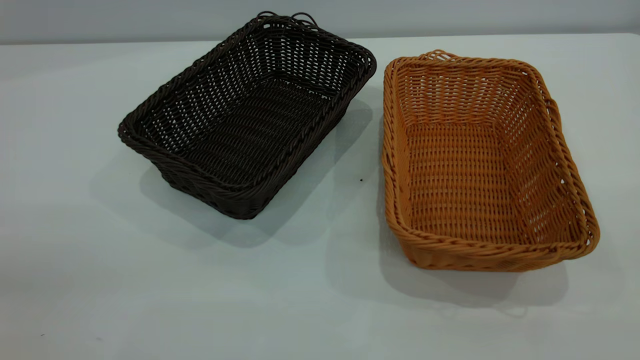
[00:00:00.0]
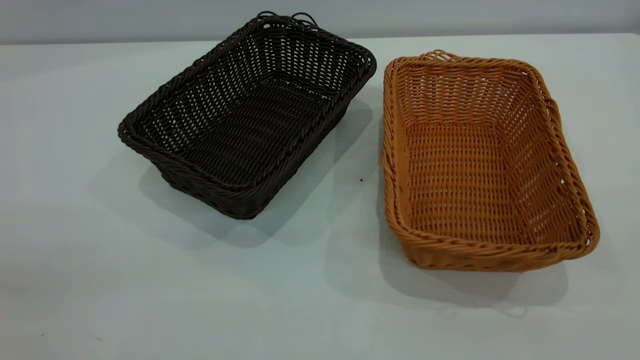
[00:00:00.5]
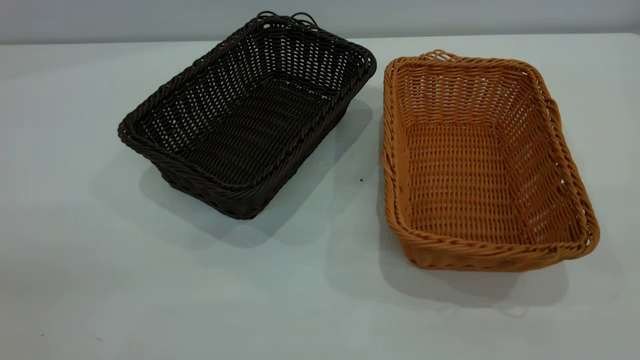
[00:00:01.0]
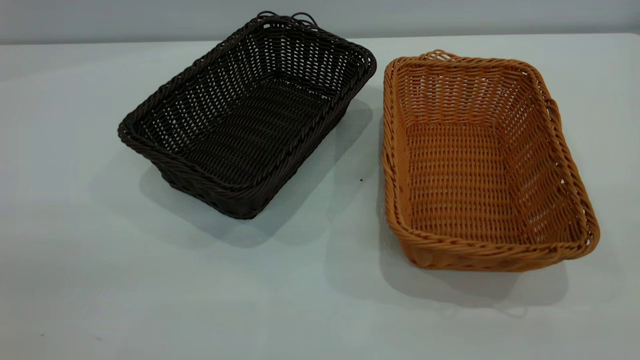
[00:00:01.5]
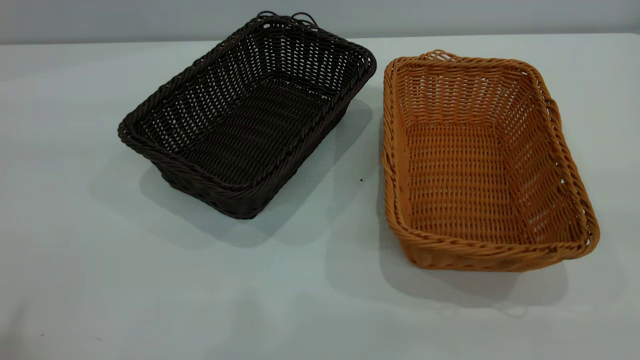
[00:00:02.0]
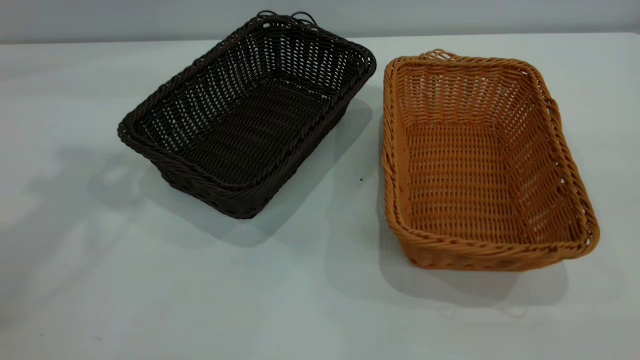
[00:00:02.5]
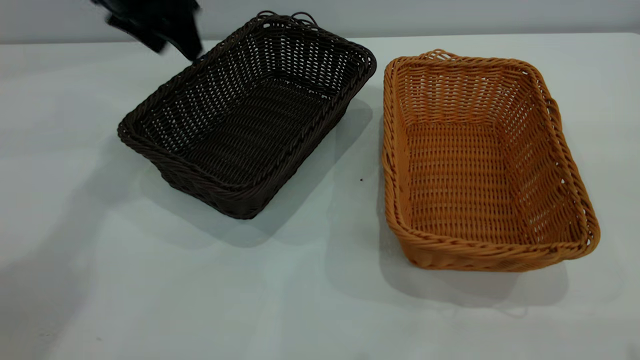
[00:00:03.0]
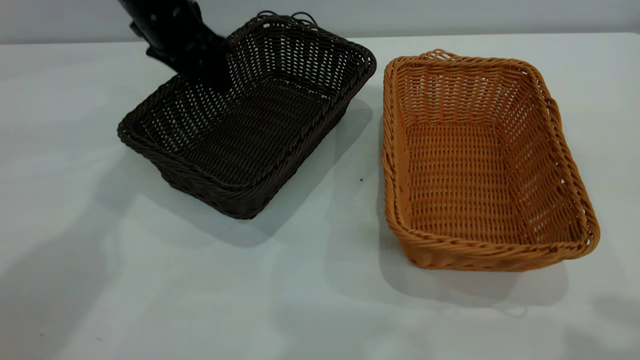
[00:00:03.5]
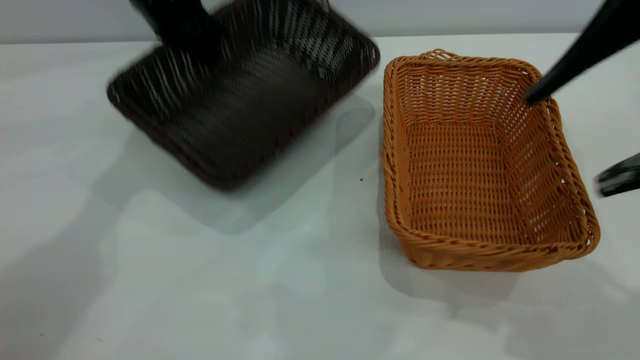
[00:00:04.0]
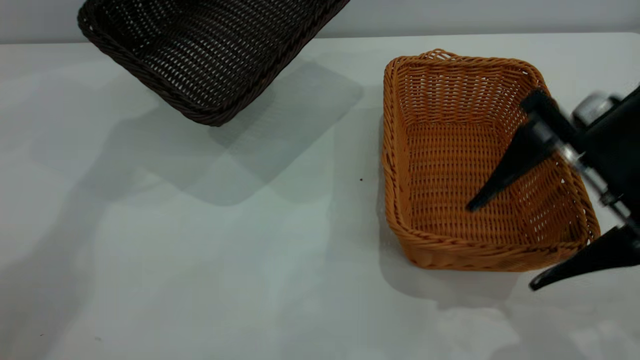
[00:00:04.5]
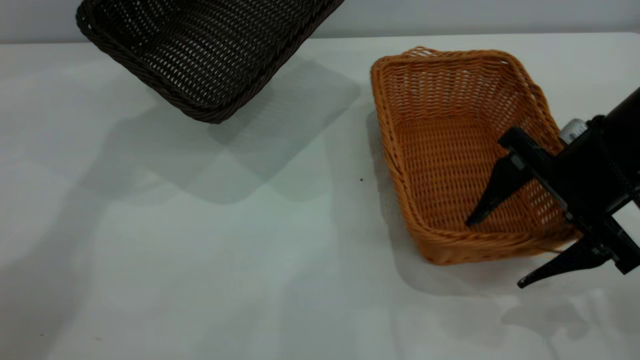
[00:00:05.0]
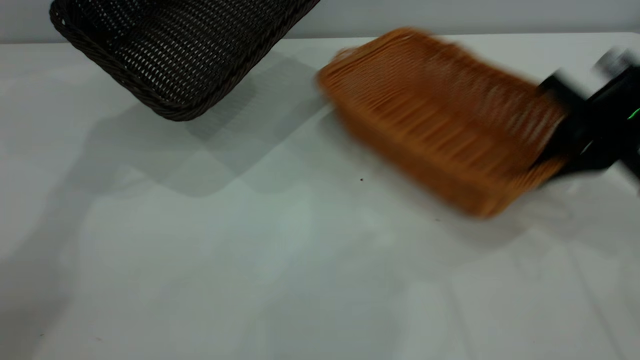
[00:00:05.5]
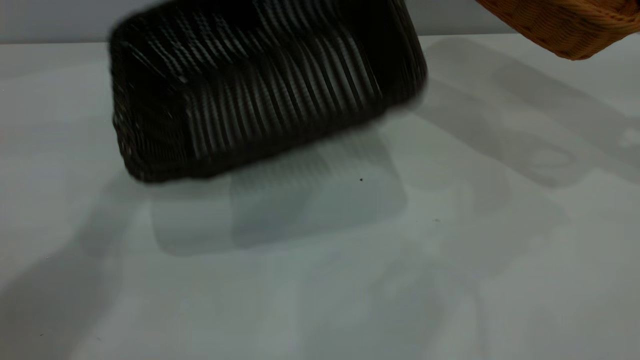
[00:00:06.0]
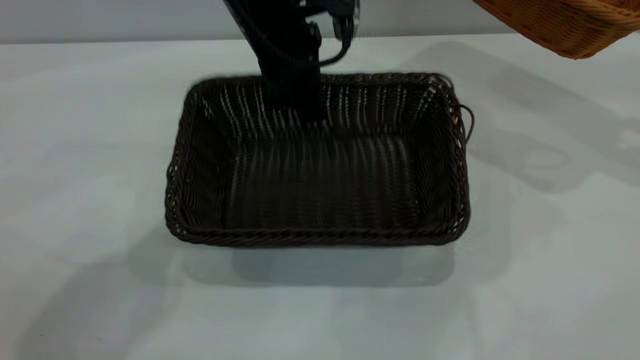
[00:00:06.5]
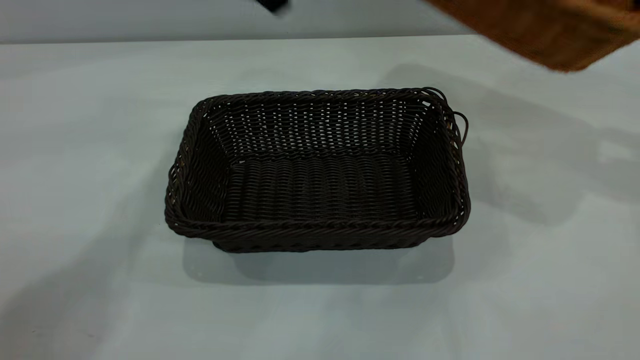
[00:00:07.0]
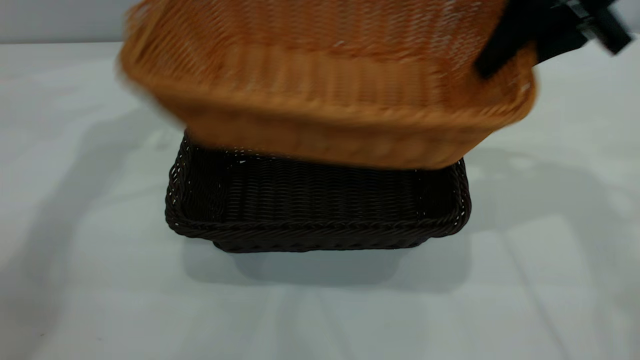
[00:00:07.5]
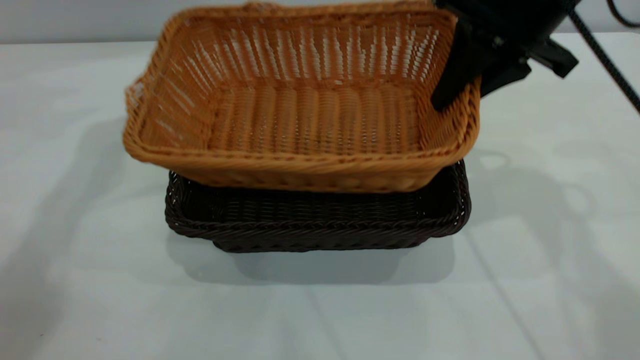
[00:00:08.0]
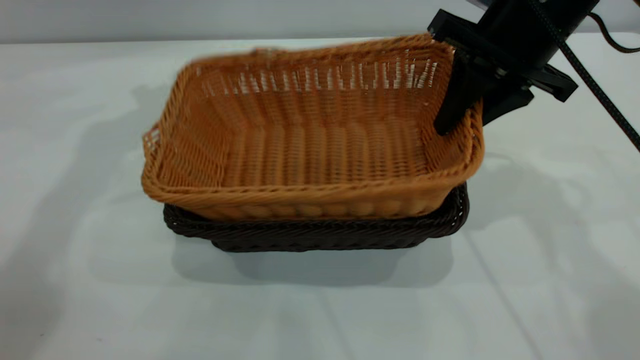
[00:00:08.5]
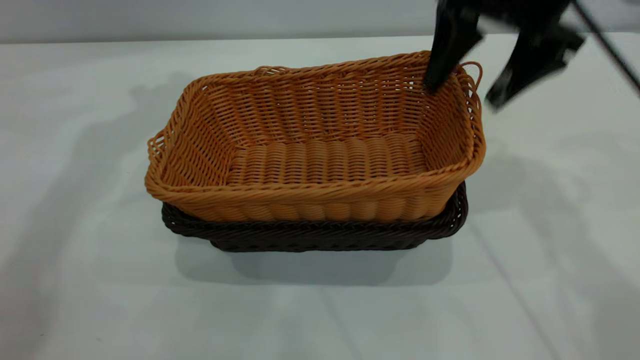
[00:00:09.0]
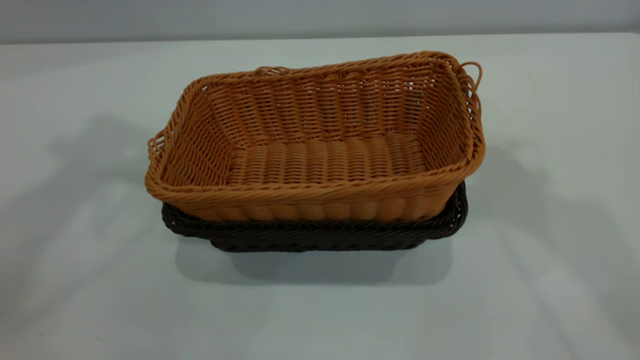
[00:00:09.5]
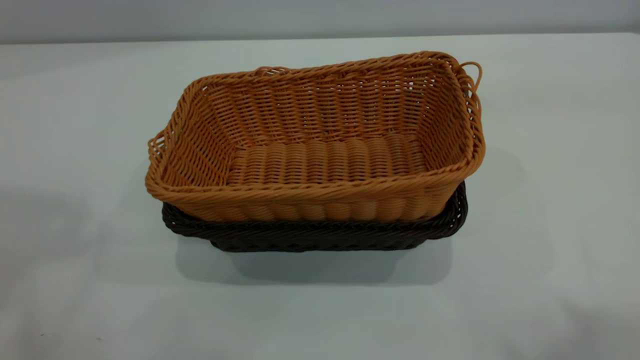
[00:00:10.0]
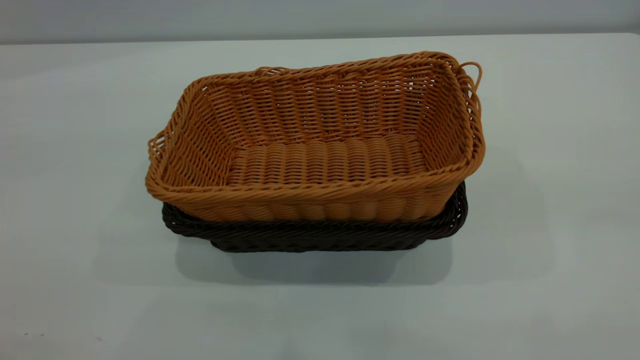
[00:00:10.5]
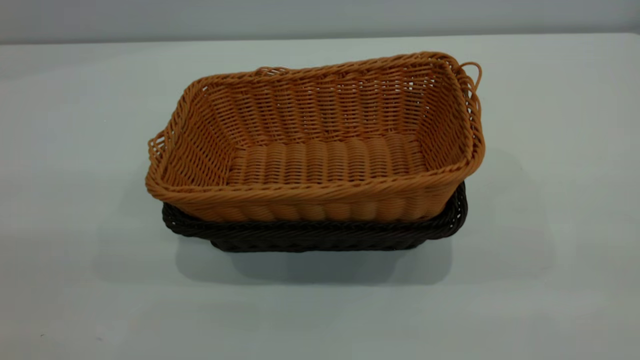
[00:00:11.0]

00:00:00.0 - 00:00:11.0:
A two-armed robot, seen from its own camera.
Task of the whole recording: the left gripper grasp the black basket and place it in the center of the table, the right gripper grasp the brown basket and place it inside the black one.
Step, 00:00:00.0 - 00:00:05.5: Pick up the light basket with the right gripper.
Step, 00:00:06.0 - 00:00:06.5: Move the dark basket to the center of view.
Step, 00:00:07.0 - 00:00:09.0: Place the light basket on the dark basket.
00:00:02.0 - 00:00:03.5: The left gripper goes roughly 40 cm forward and downward.
00:00:03.5 - 00:00:05.5: The right gripper is displaced downward and forward by about 30 cm, and closes. Meanwhile the left gripper goes some 10 cm upward, and closes.
00:00:05.5 - 00:00:07.5: The right gripper heads to the left and upward, covering approximately 15 cm. Meanwhile the left gripper reaches approximately 15 cm to the right, then returns, and opens.
00:00:07.5 - 00:00:09.0: The right gripper opens up.
00:00:09.0 - 00:00:11.0: Both grippers travel together backward, approximately 40 cm.
